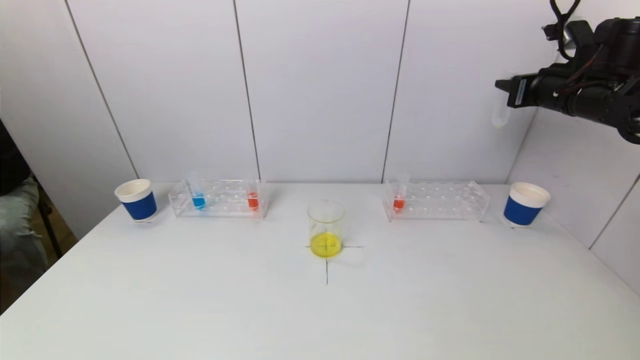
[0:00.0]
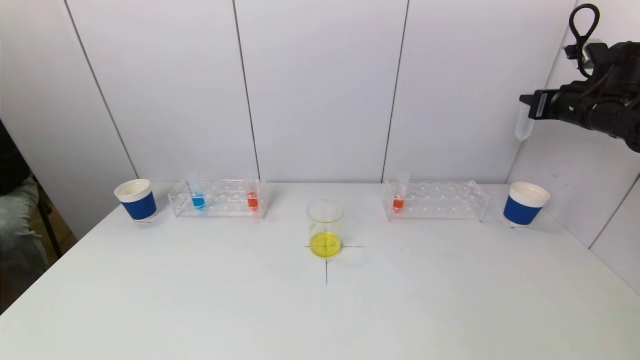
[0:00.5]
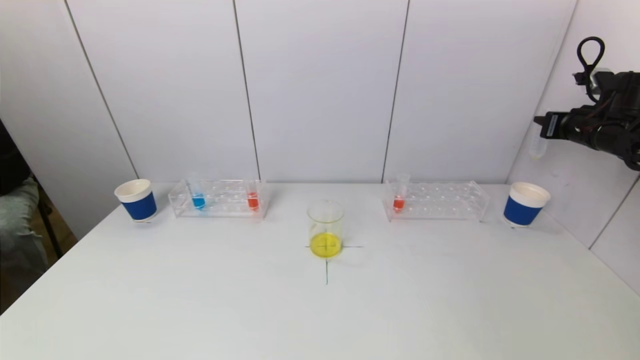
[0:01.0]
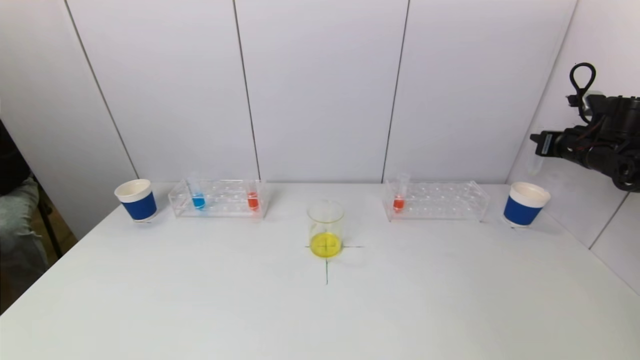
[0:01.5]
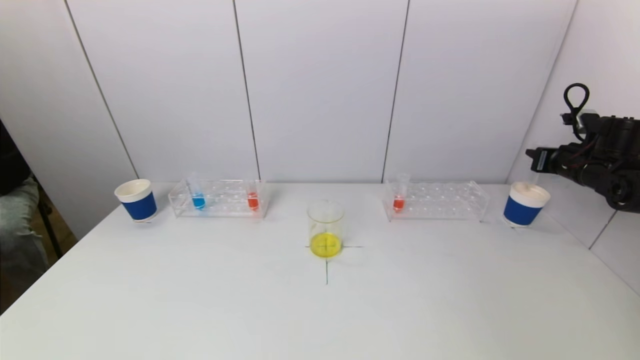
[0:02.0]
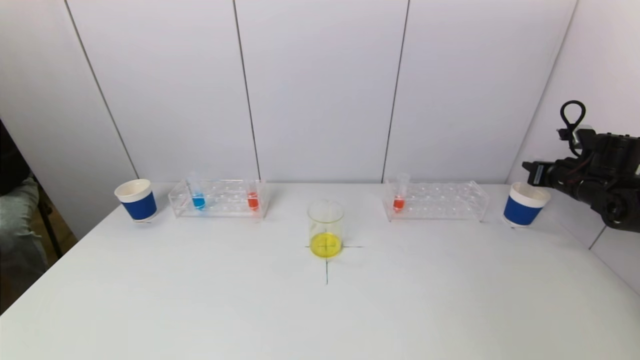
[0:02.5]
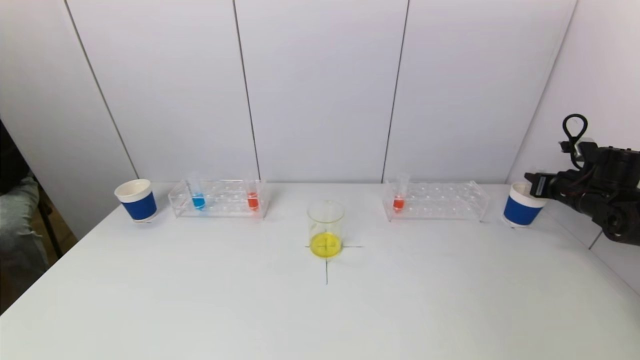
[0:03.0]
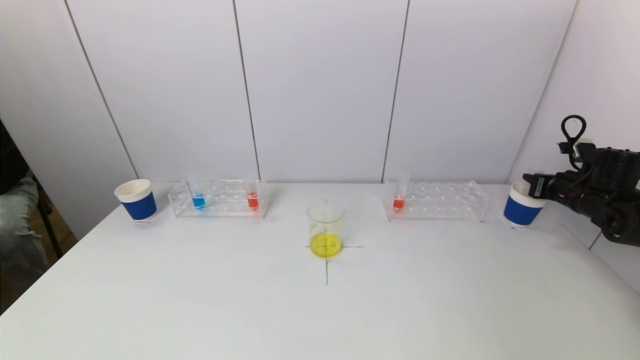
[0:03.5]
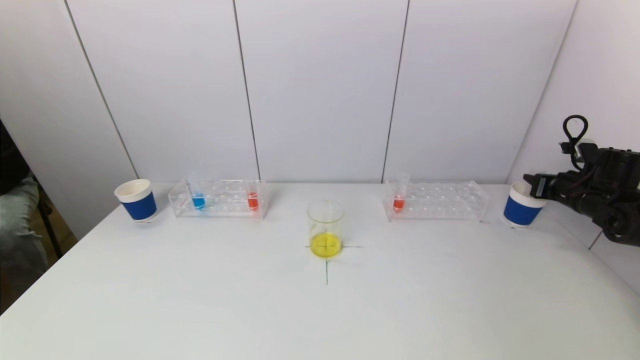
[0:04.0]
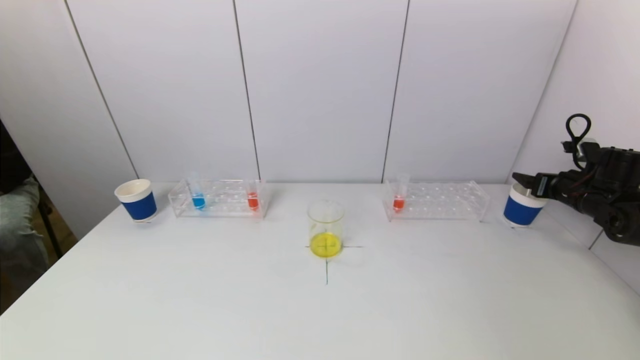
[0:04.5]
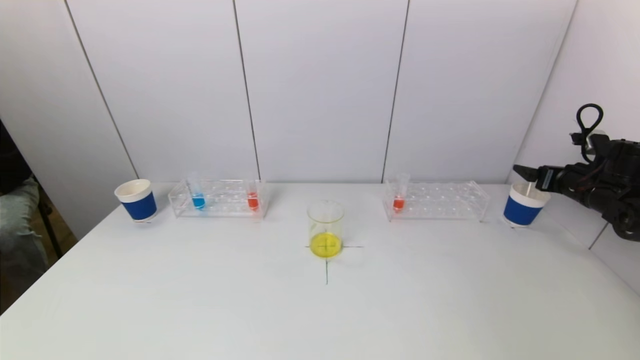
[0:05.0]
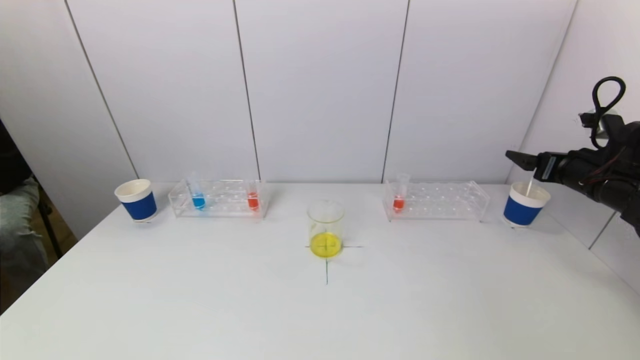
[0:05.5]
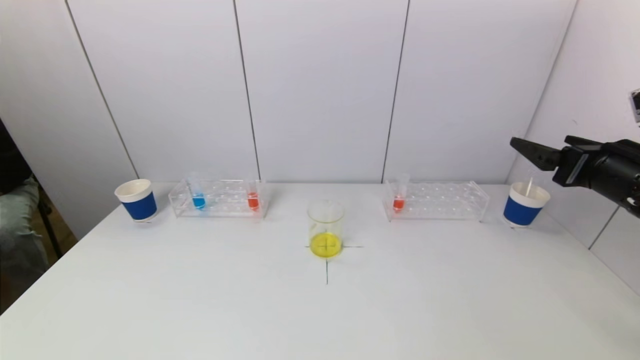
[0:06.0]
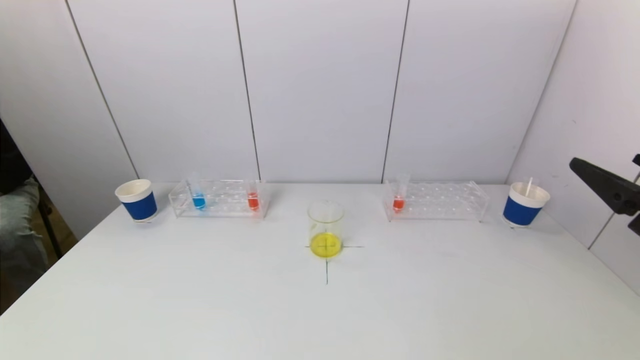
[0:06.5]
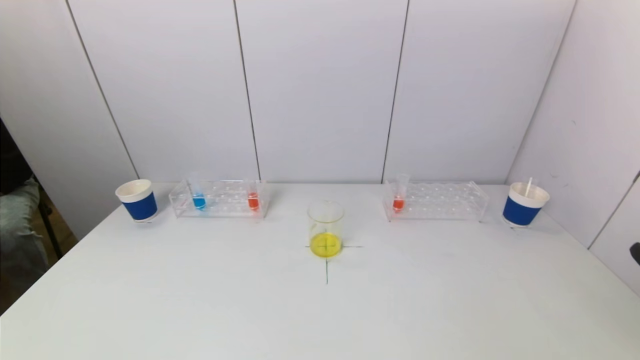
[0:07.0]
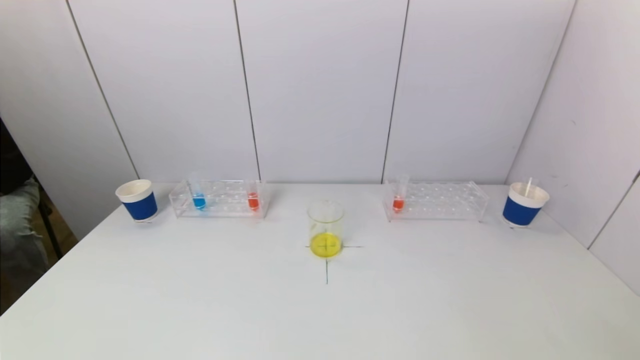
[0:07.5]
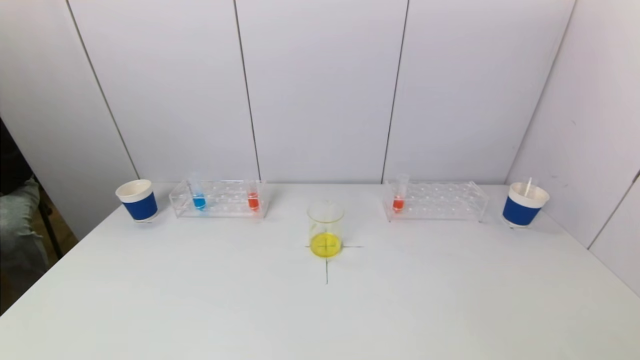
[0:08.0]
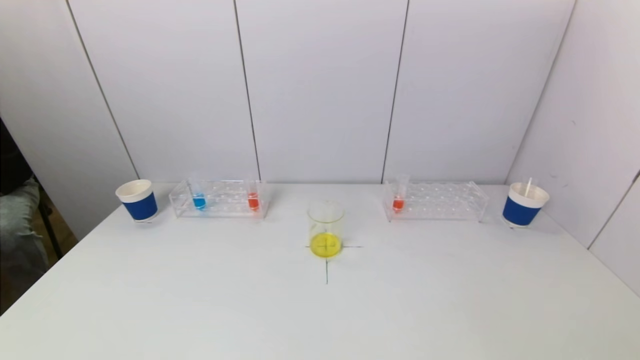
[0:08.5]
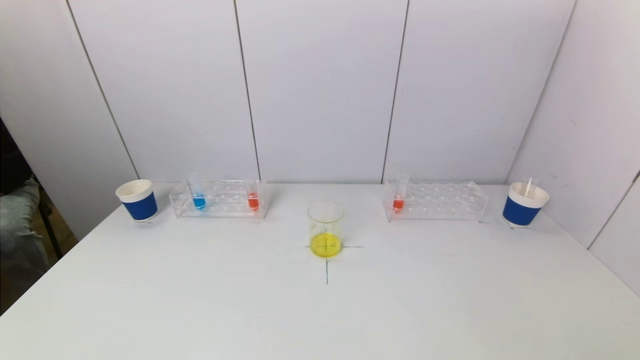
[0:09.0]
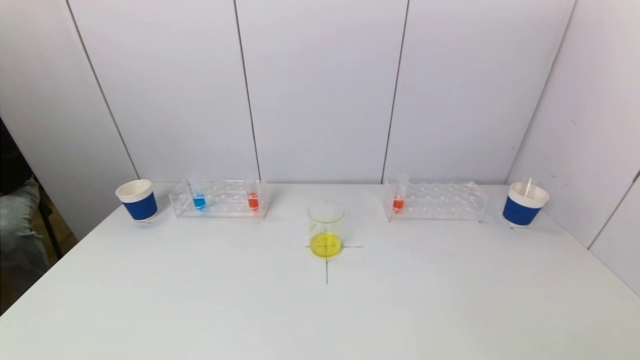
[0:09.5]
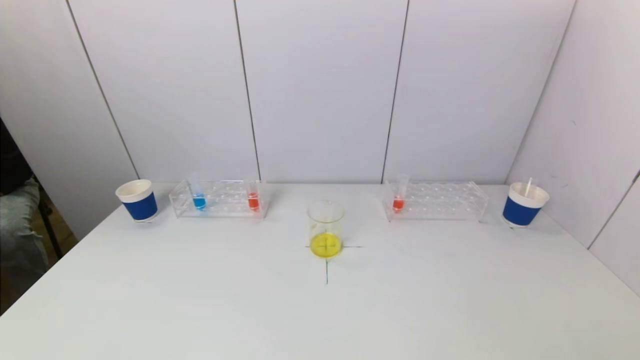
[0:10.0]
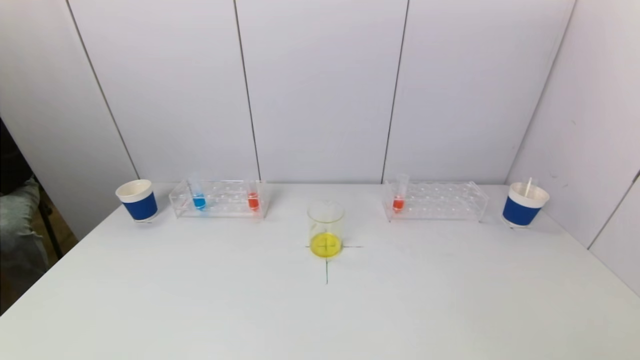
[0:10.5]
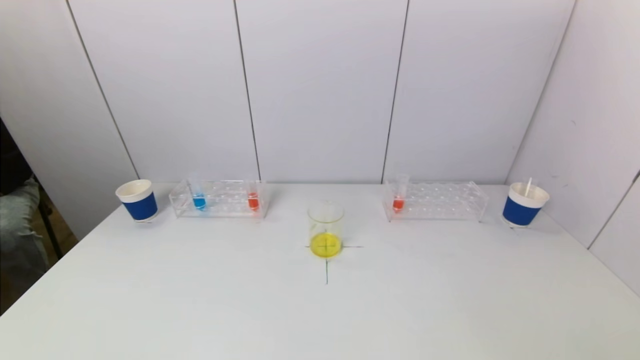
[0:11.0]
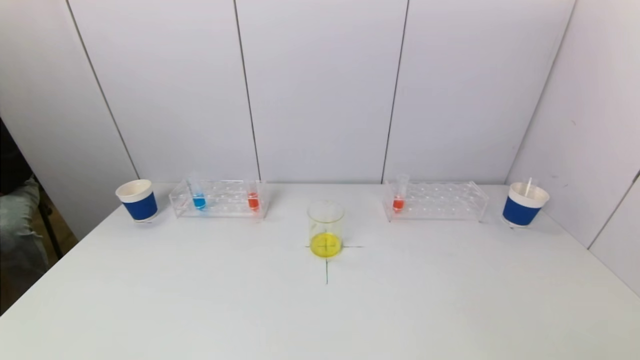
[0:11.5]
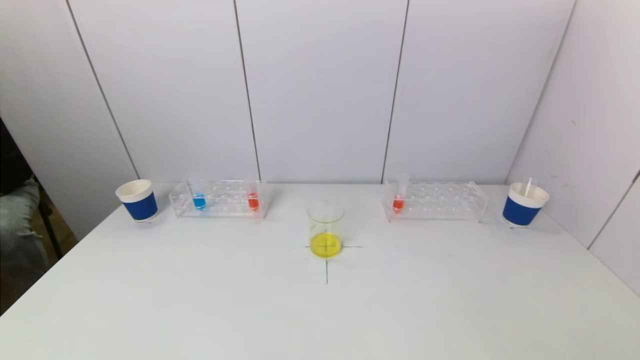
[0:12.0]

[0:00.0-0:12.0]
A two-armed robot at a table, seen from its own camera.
Task of the whole recording: pick up a test tube with pigment on left test tube rack and a test tube with pigment on right test tube rack by grippers and pour them into the beaker.
Step, 0:00.0 to 0:04.0: Place the test tube into the paper cup with the right gripper.
0:00.0 to 0:02.0: The right gripper travels downward and to the right by some 15 cm.
0:02.0 to 0:04.0: The right gripper changes place by some 5 cm.
0:04.0 to 0:06.0: The right gripper is displaced backward, to the left and upward by approximately 25 cm, and opens its fingers.
0:06.0 to 0:08.0: The right gripper heads backward, covering about 30 cm.

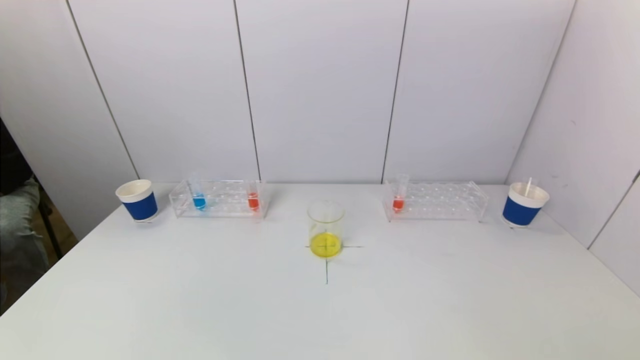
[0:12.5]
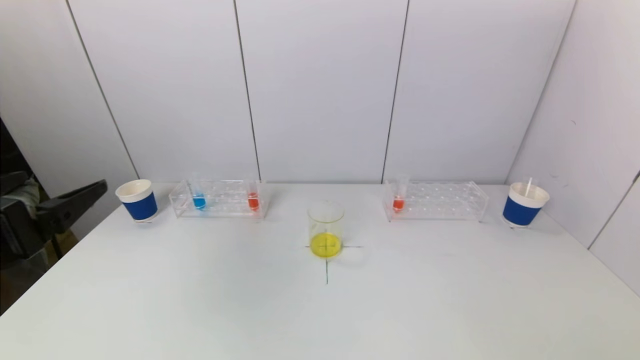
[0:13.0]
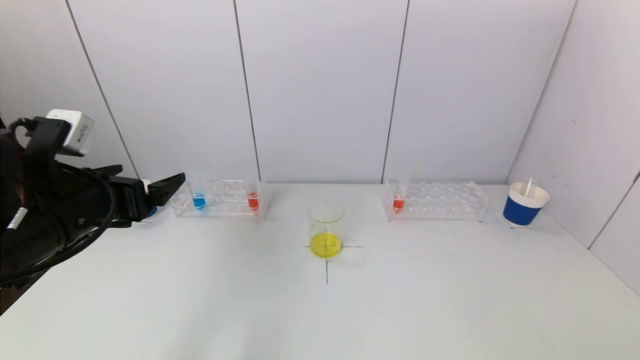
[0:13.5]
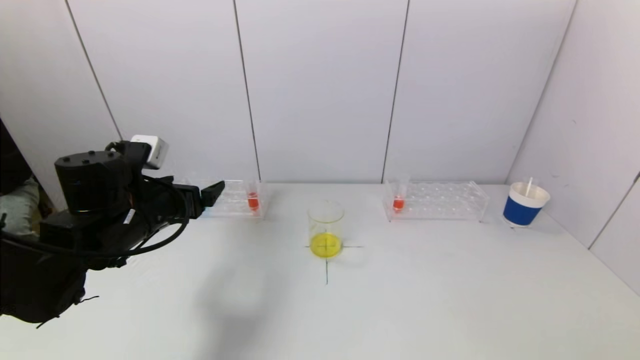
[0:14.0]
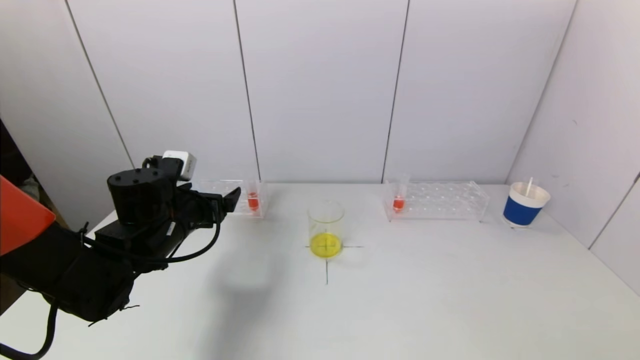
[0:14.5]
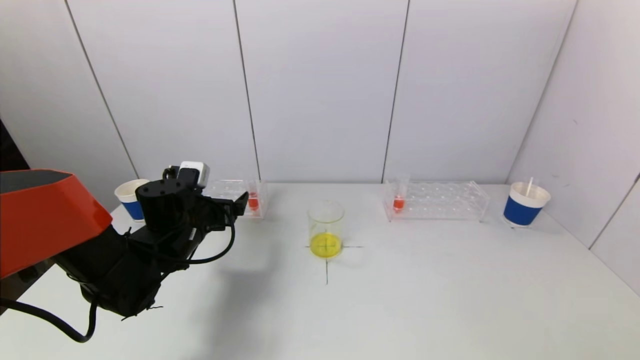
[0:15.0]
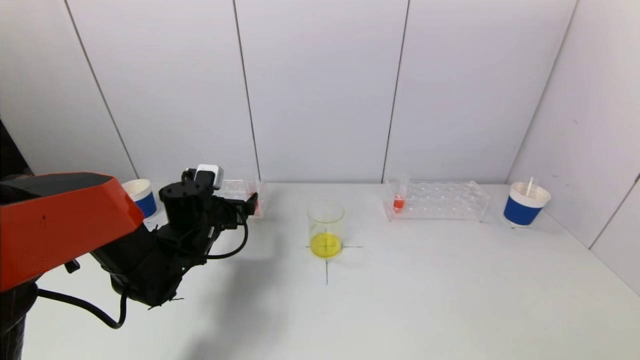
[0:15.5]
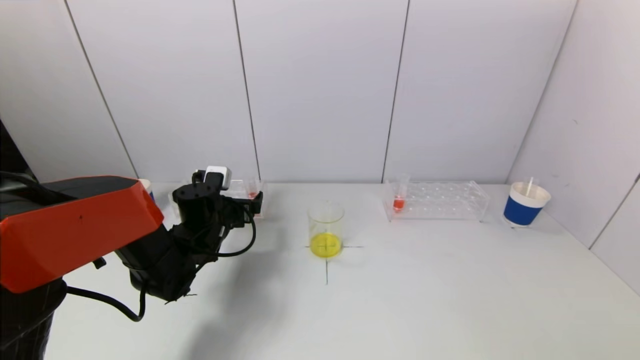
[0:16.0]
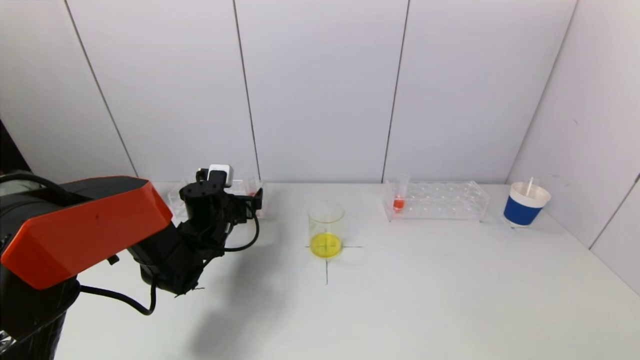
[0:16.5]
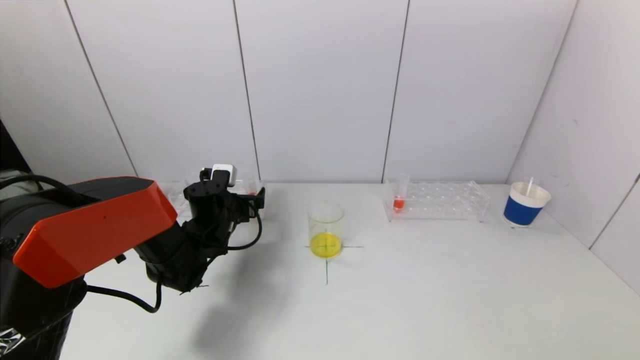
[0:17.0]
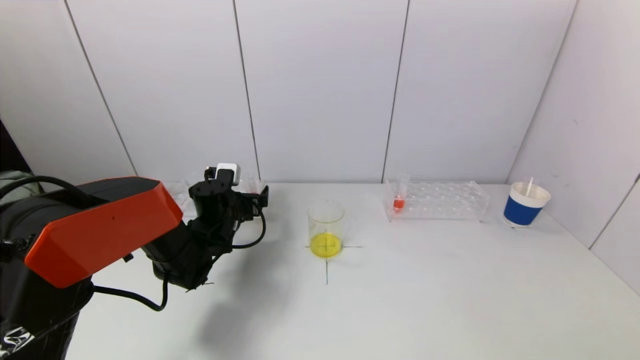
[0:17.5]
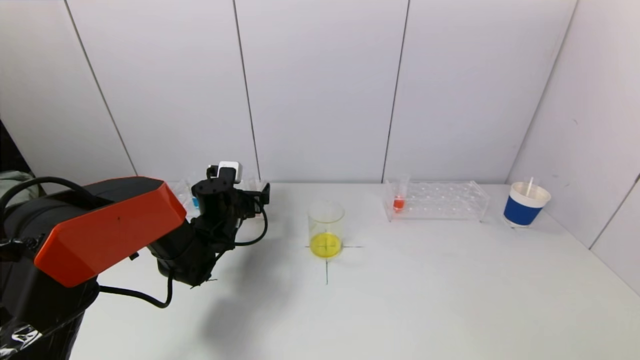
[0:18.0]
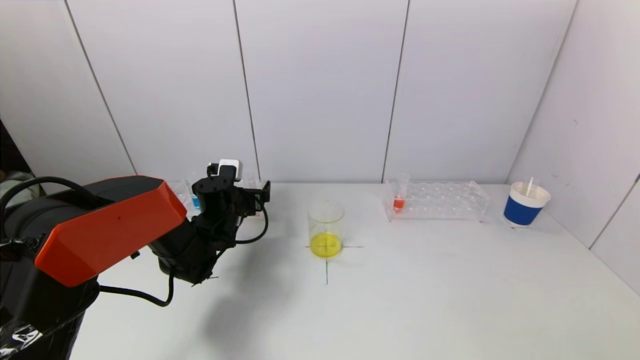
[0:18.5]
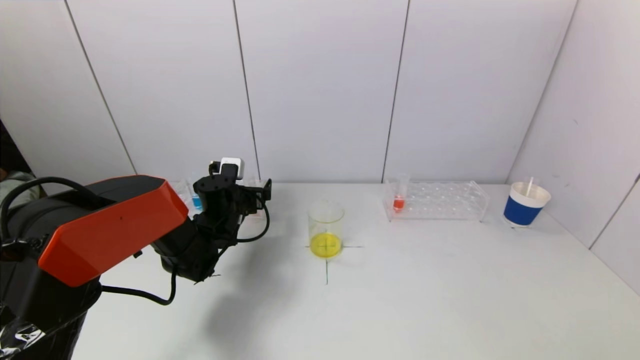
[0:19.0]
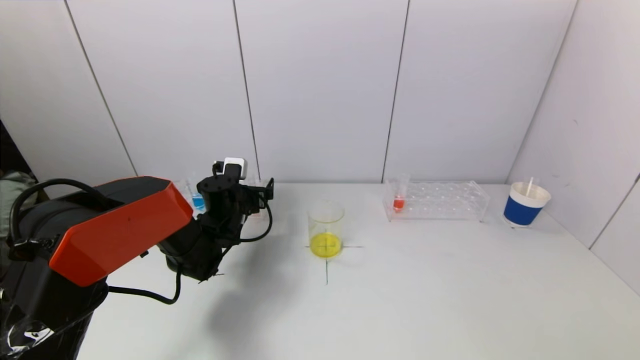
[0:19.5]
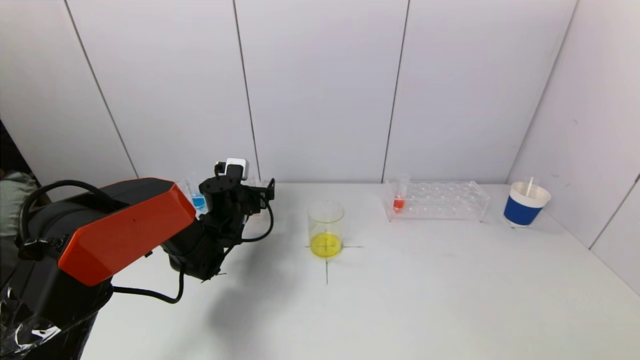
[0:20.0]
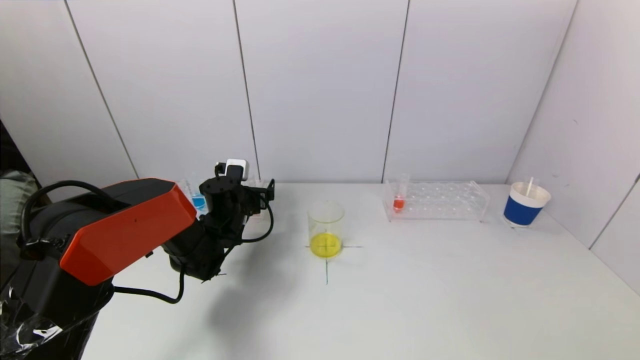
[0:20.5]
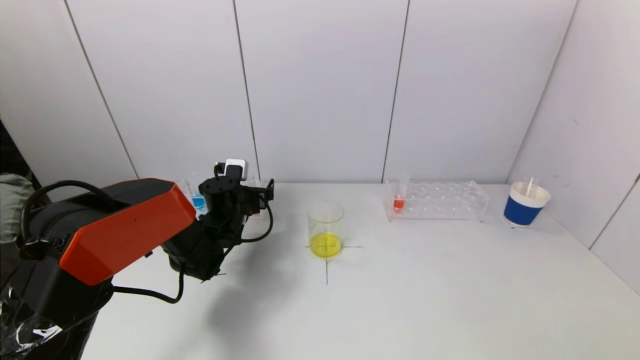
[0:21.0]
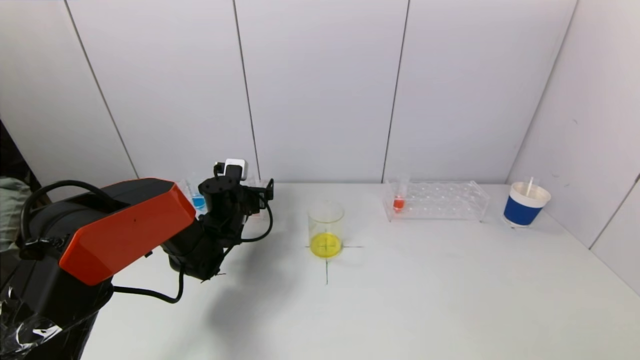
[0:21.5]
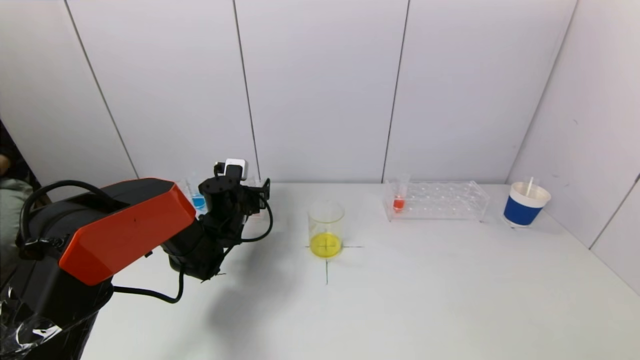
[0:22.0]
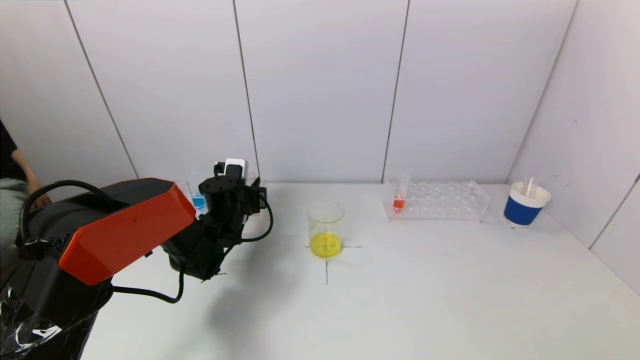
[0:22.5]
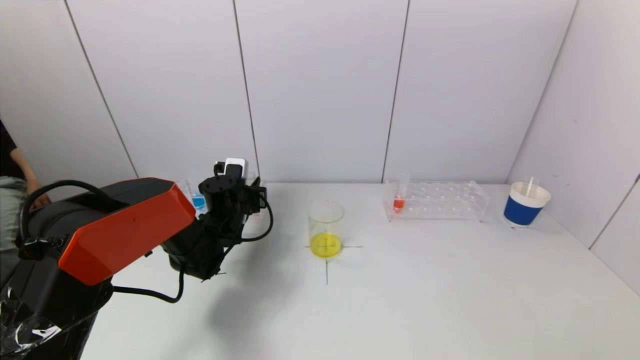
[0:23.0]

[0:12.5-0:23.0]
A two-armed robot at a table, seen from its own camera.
Task of the whole recording: pick up a test tube with pigment on left test tube rack and a test tube with pigment on right test tube rack by grippers and pour them into the beaker.
Step, 0:12.5 to 0:22.5: Grasp the red reagent with the left gripper.
0:12.5 to 0:14.5: The left gripper moves forward, approximately 30 cm.
0:14.5 to 0:16.5: The left gripper shifts some 10 cm forward and downward.
0:16.5 to 0:19.0: There are only small adjustments of the grippers.
0:19.0 to 0:21.0: Neither gripper changes place.
0:21.0 to 0:23.0: The left gripper closes up.
